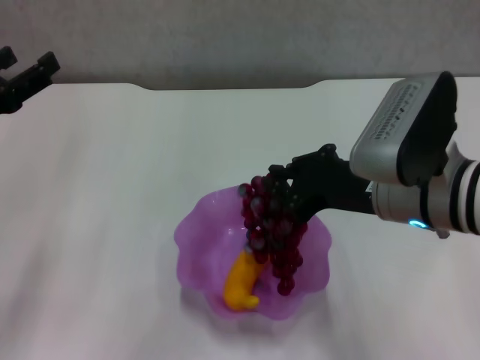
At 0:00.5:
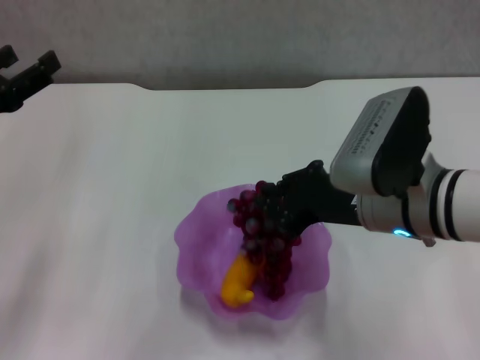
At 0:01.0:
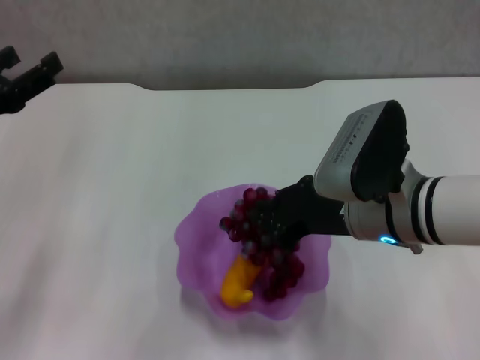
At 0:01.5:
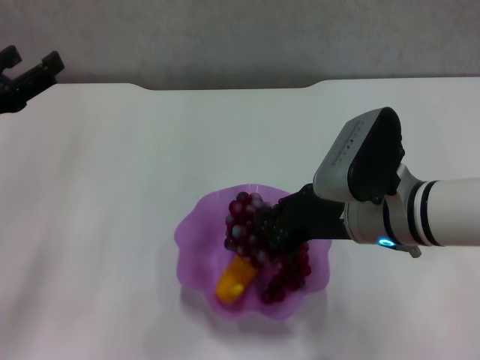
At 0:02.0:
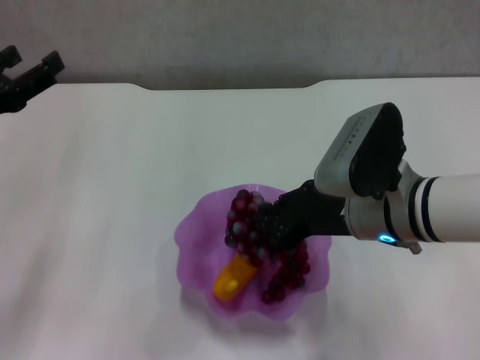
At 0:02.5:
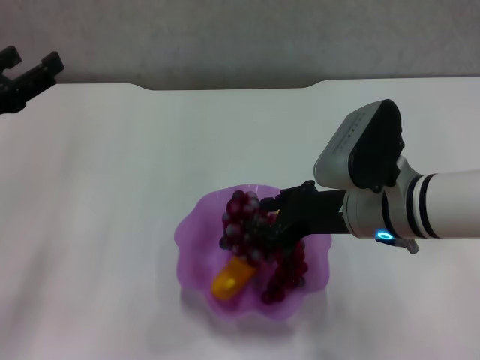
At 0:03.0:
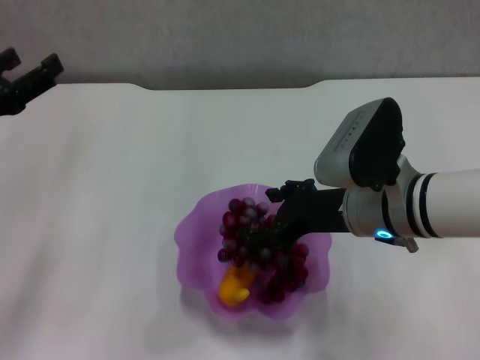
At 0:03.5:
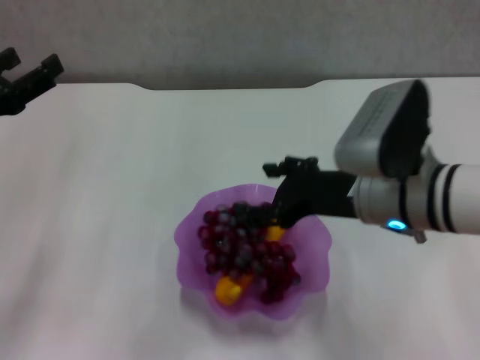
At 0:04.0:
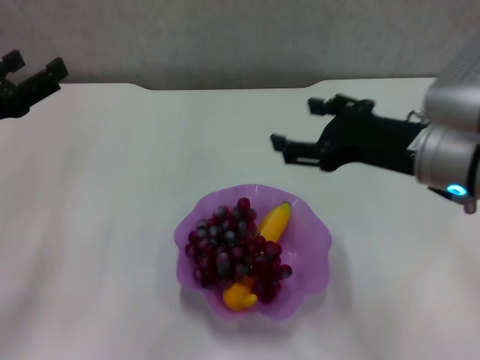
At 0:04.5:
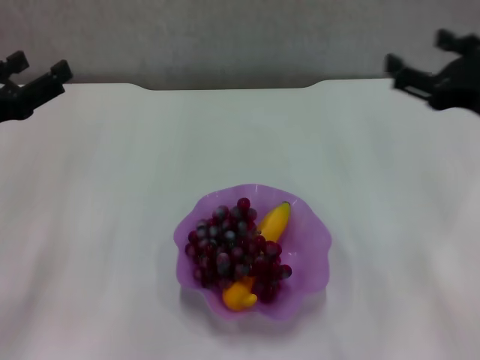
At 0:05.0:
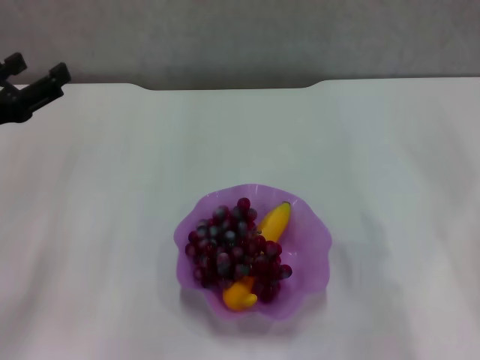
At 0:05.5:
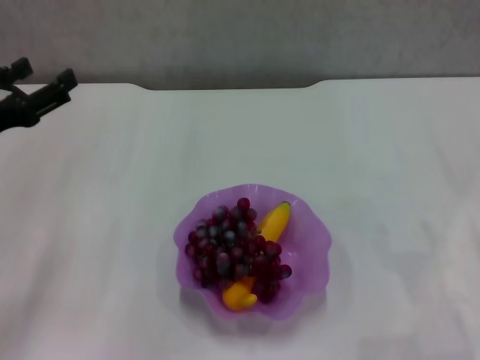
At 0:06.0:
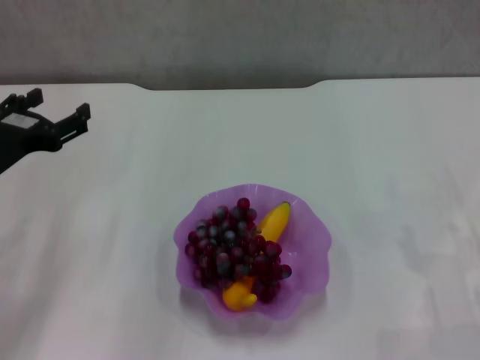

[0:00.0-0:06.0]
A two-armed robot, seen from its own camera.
Step, 0:00.0 to 0:03.5: Place the grape in the purple plate with right gripper.
0:00.0 to 0:02.0: The right gripper ends up some 5 cm from where it was.
0:02.0 to 0:04.0: The right gripper travels upward by some 5 cm, and opens.
0:04.0 to 0:06.0: The right gripper goes roughly 20 cm to the right and downward.

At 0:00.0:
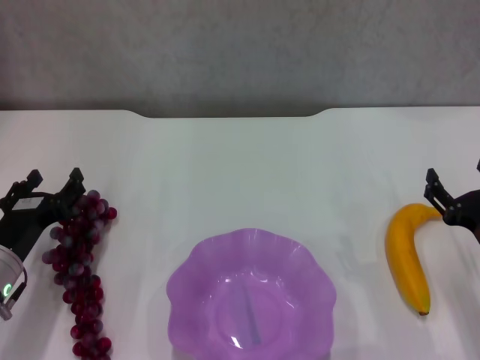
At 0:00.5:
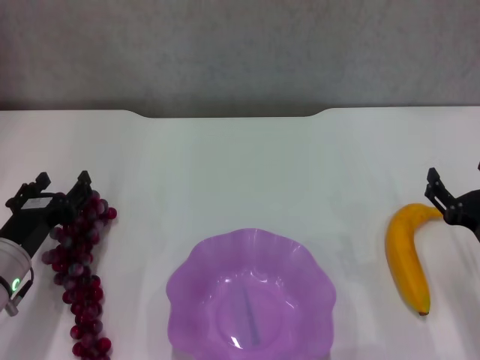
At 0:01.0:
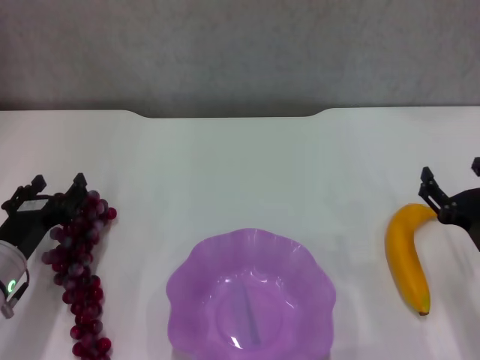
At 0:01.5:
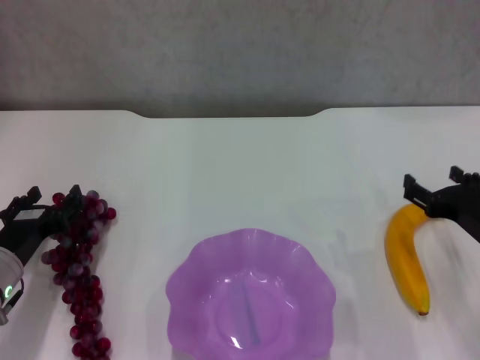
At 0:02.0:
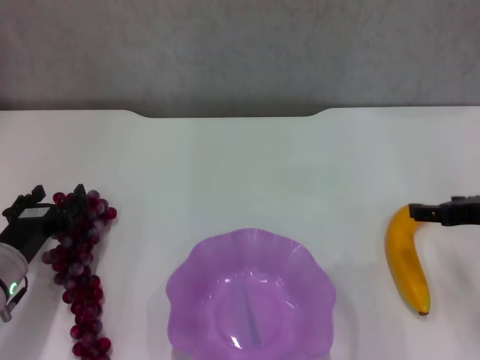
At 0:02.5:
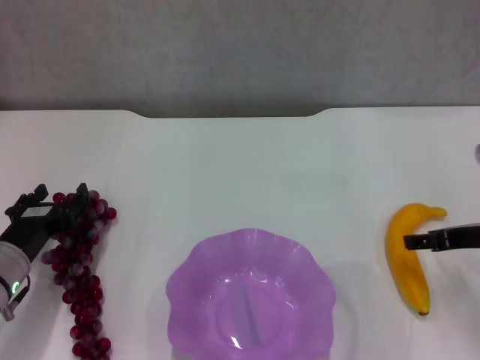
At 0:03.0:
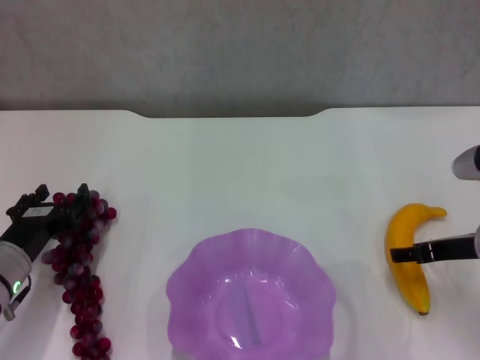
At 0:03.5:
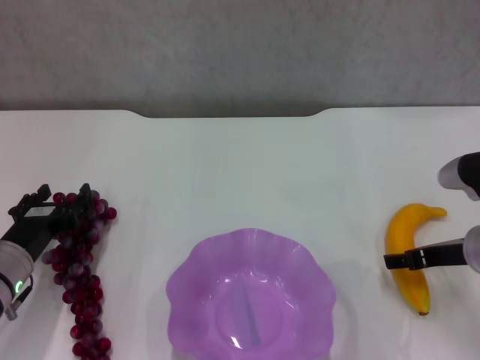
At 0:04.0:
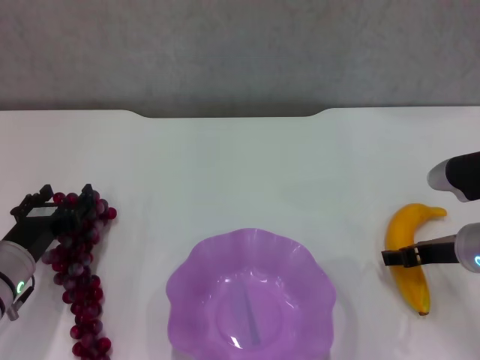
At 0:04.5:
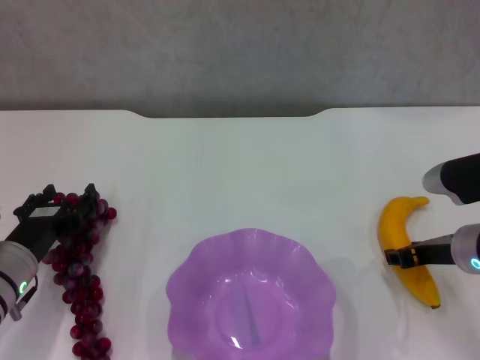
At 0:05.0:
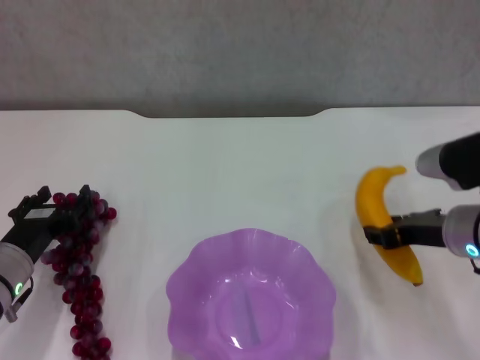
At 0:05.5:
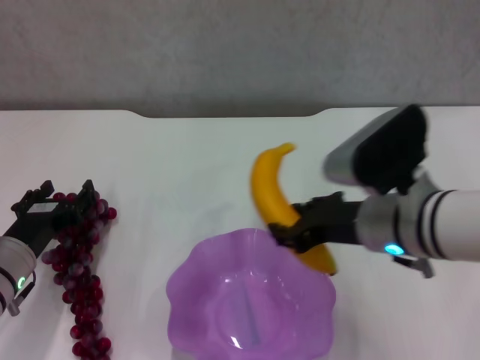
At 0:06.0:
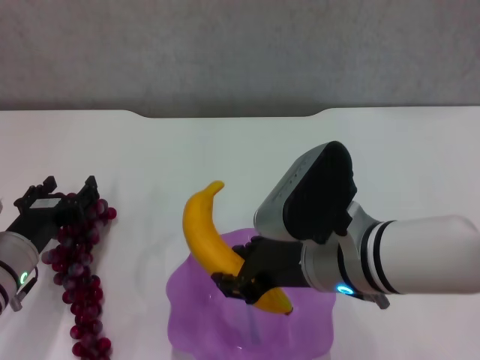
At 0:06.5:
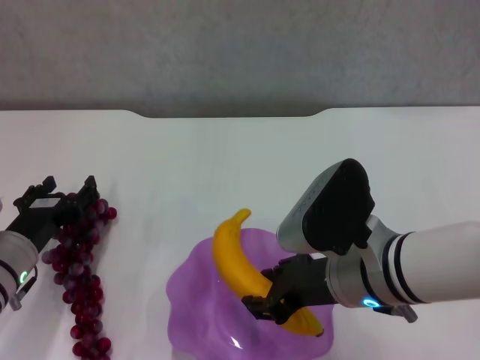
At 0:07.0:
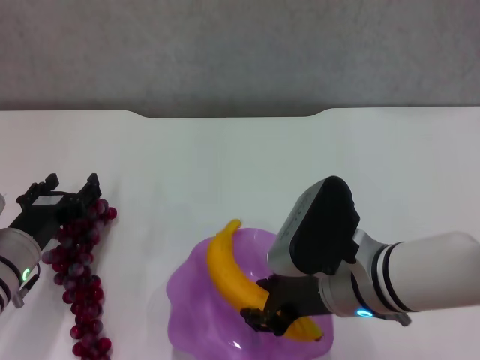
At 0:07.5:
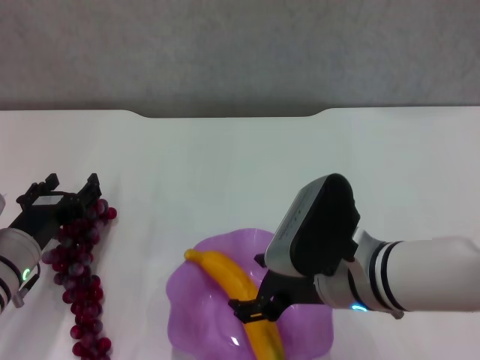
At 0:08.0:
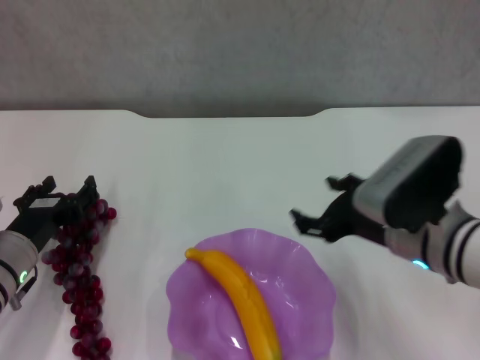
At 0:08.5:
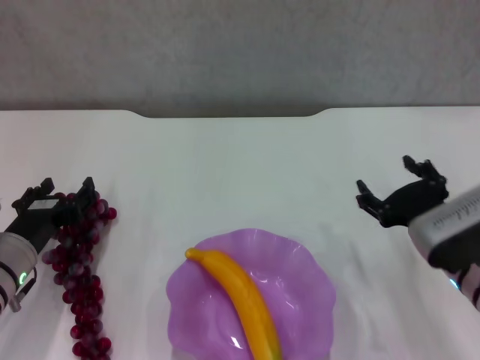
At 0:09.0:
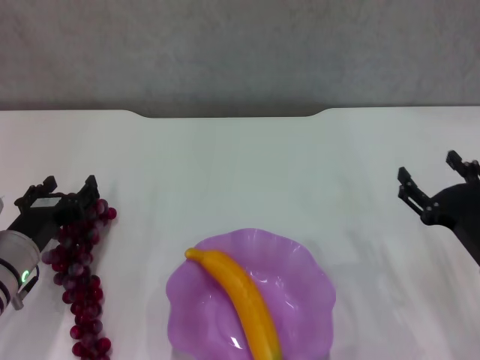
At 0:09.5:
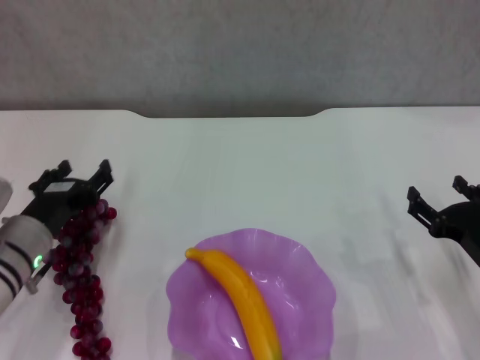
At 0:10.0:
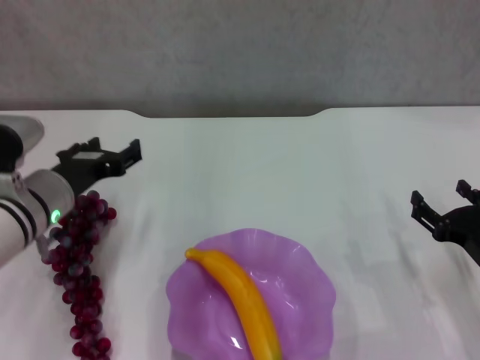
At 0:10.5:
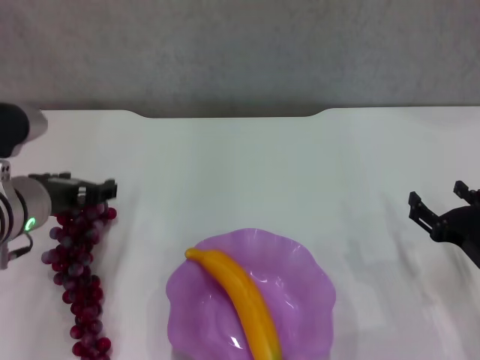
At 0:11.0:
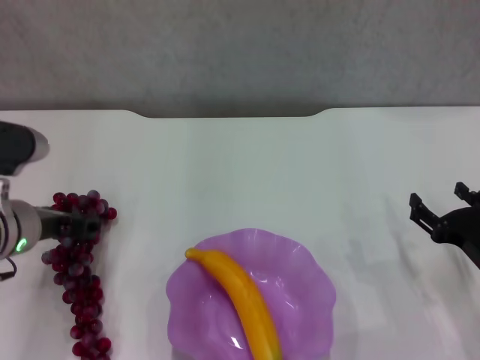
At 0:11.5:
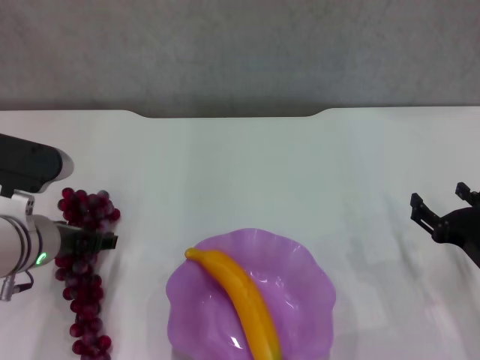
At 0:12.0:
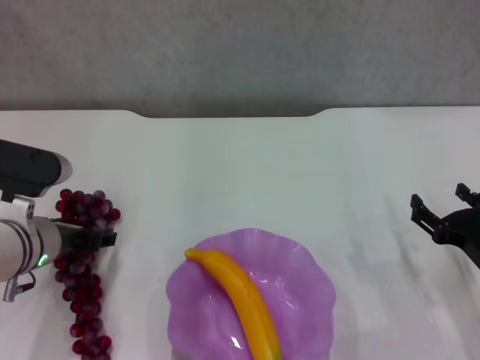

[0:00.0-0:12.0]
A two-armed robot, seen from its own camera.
Step, 0:00.0 to 0:04.5: Grasp the banana with right gripper.
Step, 0:05.0 to 0:07.5: Place the banana in the purple plate with right gripper.
0:00.0 to 0:02.0: The right gripper heads upward, covering approximately 10 cm.
0:02.0 to 0:04.0: The right gripper is displaced downward by about 5 cm.
0:04.0 to 0:06.0: The right gripper moves to the left, roughly 15 cm, and closes its fingers.
0:06.0 to 0:08.0: The right gripper is displaced to the right by about 10 cm, and opens its fingers.
0:08.0 to 0:10.0: The left gripper is displaced upward by about 5 cm. The right gripper heads to the right and downward, covering about 15 cm.

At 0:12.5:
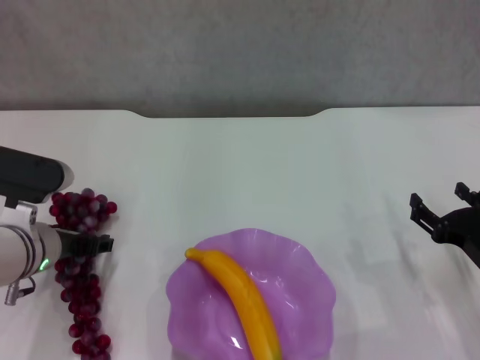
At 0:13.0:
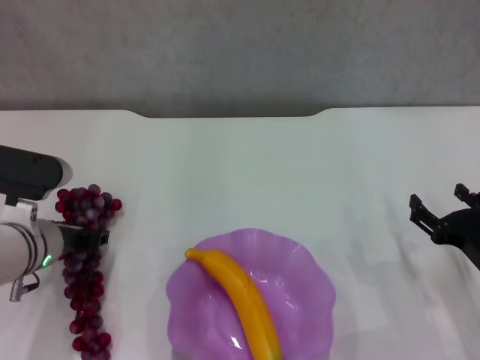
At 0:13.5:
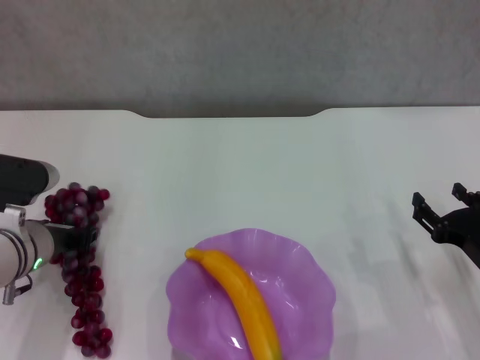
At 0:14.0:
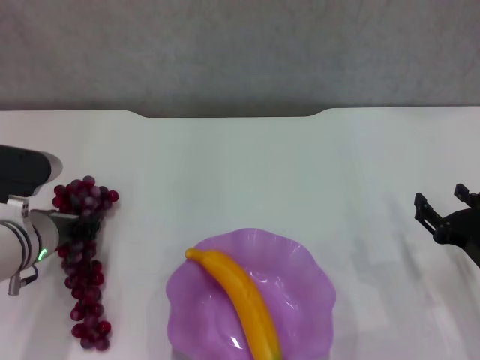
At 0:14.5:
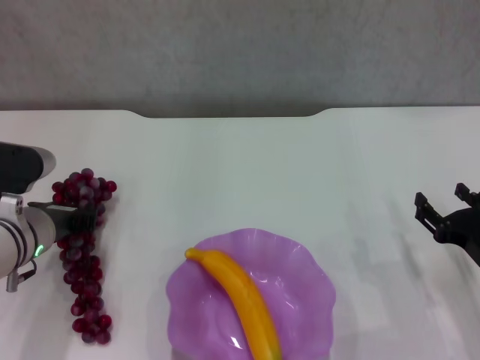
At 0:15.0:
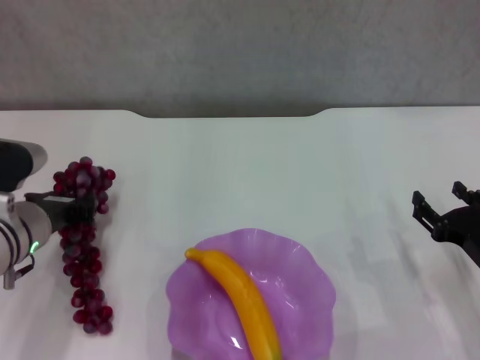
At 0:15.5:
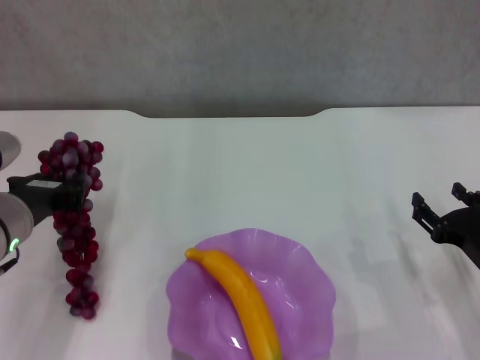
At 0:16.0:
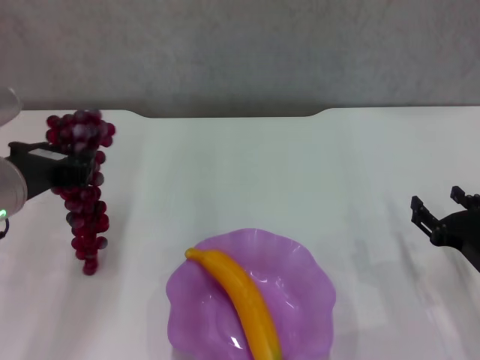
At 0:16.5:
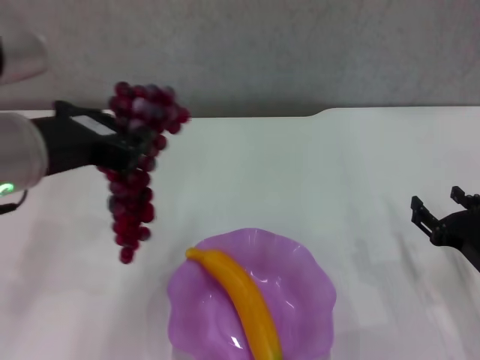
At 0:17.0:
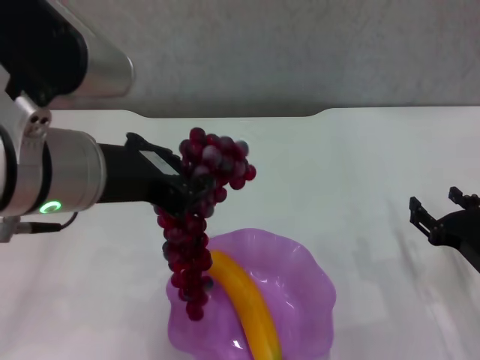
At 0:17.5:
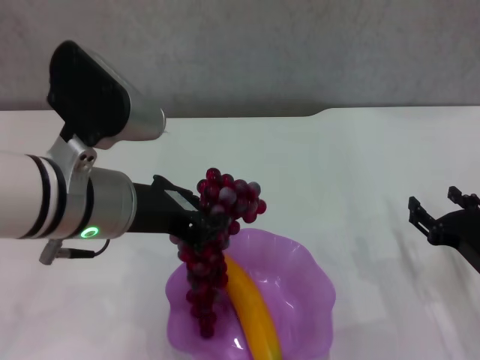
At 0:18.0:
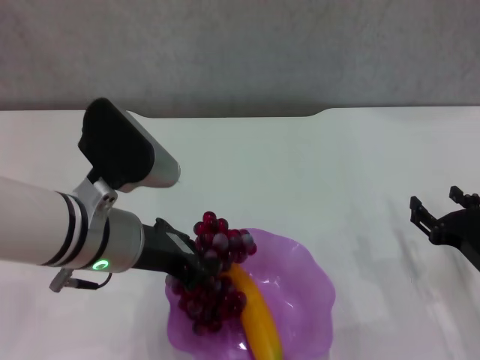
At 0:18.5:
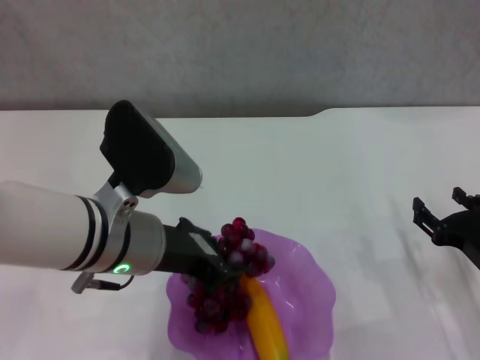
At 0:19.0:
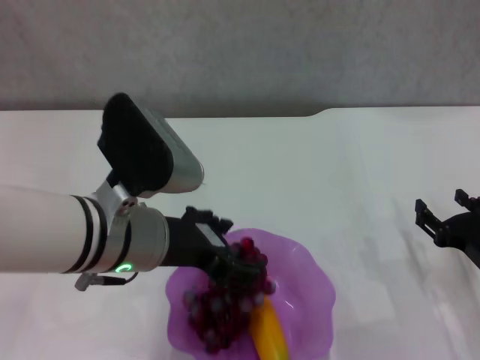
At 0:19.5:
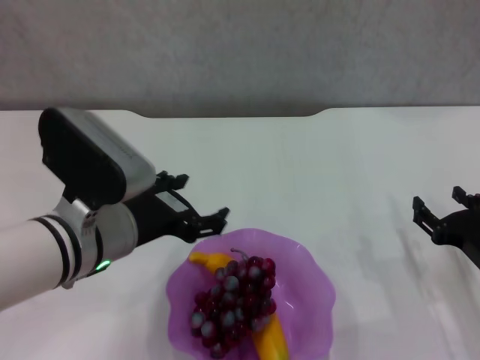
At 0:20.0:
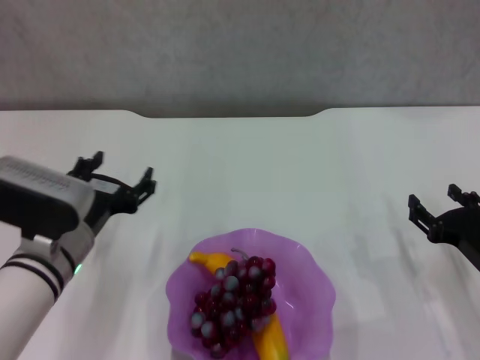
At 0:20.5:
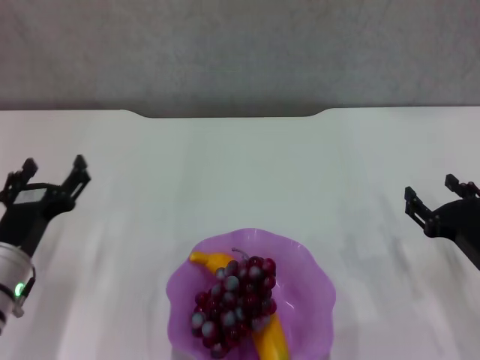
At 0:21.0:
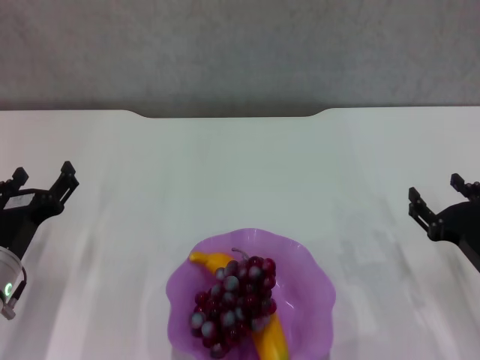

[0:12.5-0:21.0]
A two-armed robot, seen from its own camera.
Step, 0:13.5 to 0:19.0: Place the grape in the purple plate with left gripper.
0:12.5 to 0:14.5: The left gripper closes its fingers.
0:14.5 to 0:16.5: The left gripper moves upward, roughly 15 cm.
0:16.5 to 0:19.0: The left gripper travels downward and to the right by some 10 cm, and opens.
0:19.0 to 0:21.0: The left gripper shifts approximately 20 cm to the left and downward, and opens its fingers.
